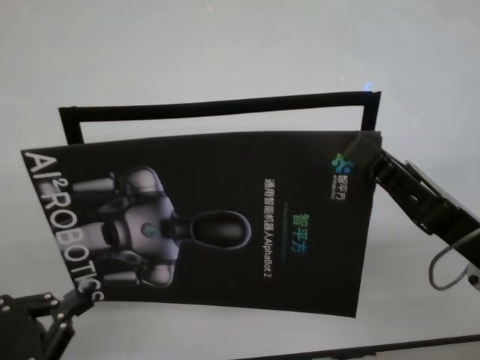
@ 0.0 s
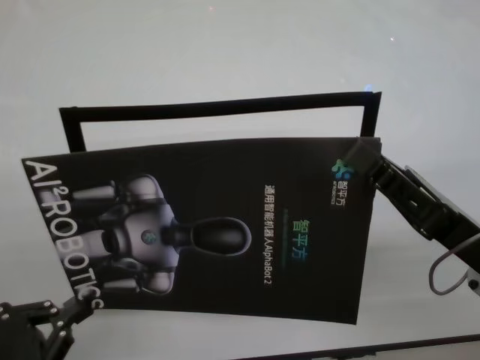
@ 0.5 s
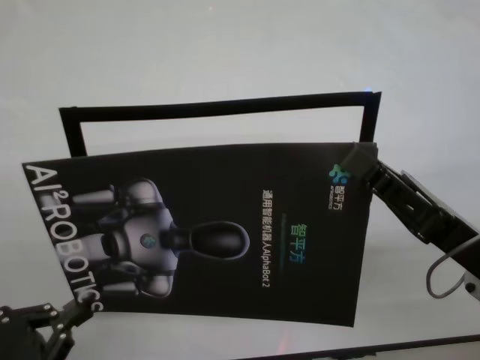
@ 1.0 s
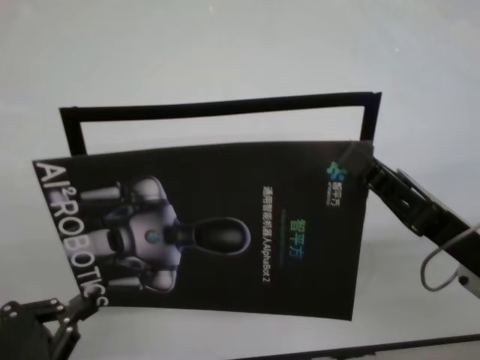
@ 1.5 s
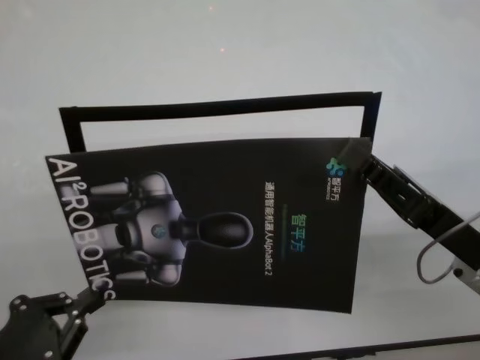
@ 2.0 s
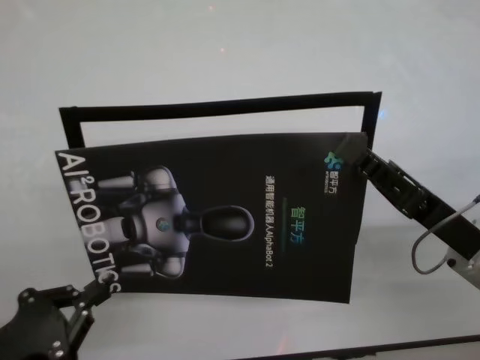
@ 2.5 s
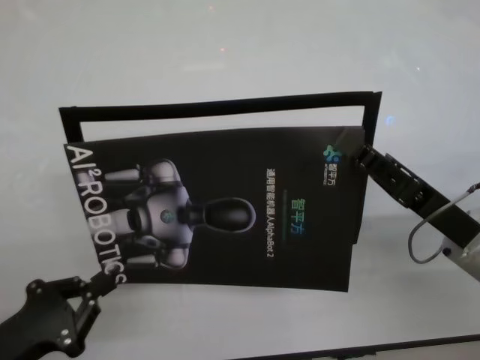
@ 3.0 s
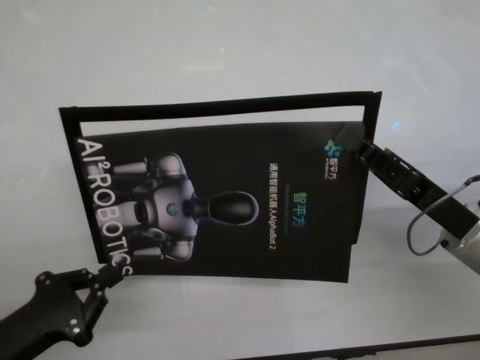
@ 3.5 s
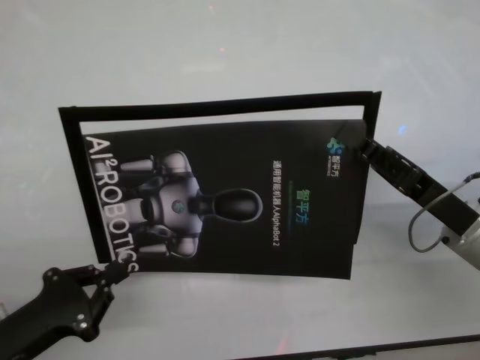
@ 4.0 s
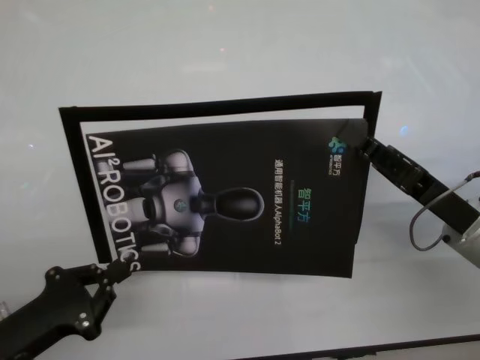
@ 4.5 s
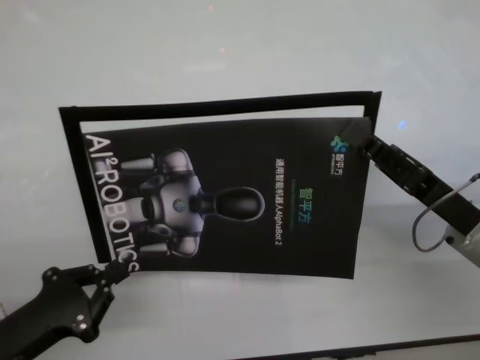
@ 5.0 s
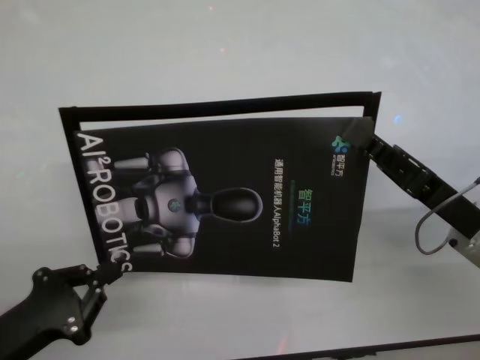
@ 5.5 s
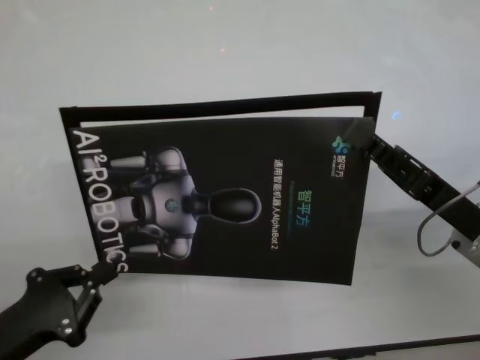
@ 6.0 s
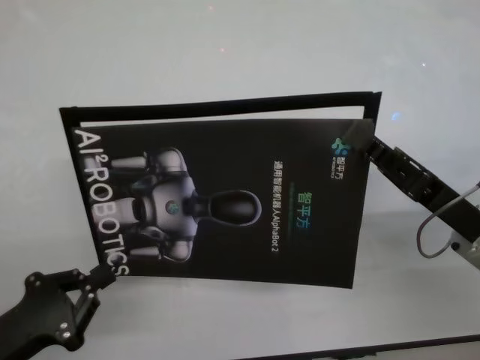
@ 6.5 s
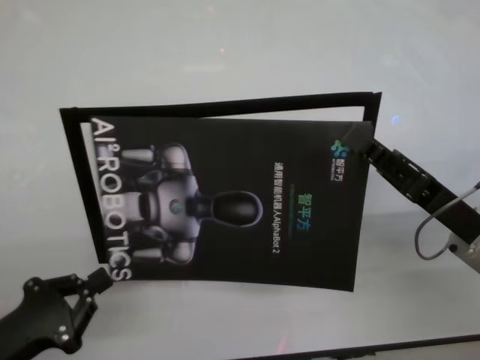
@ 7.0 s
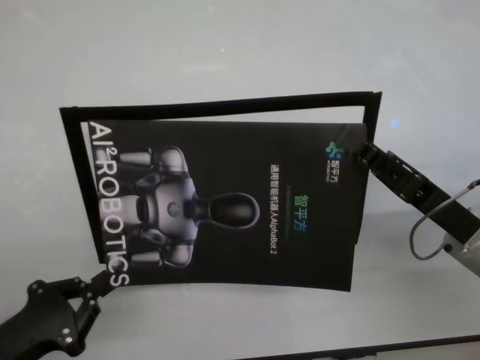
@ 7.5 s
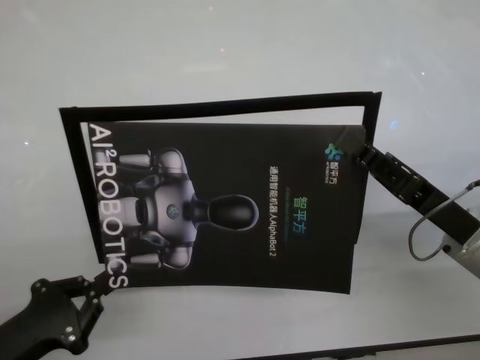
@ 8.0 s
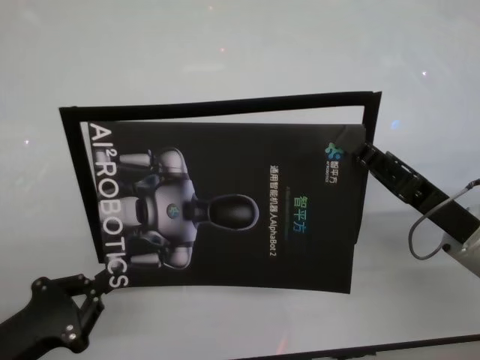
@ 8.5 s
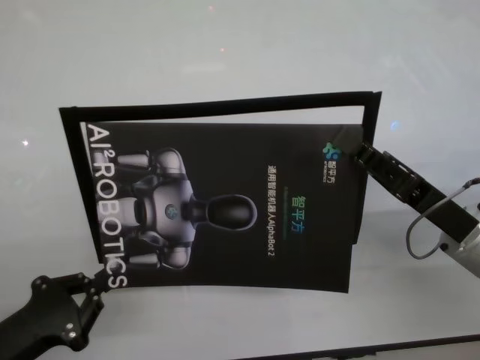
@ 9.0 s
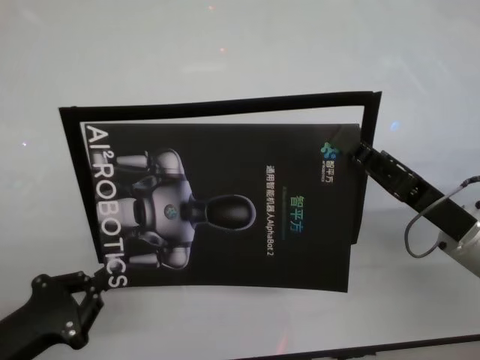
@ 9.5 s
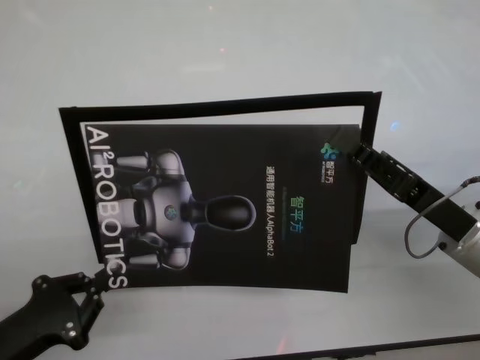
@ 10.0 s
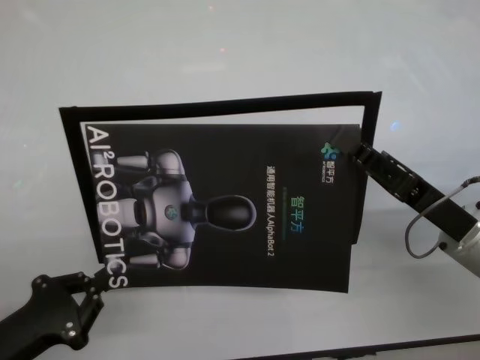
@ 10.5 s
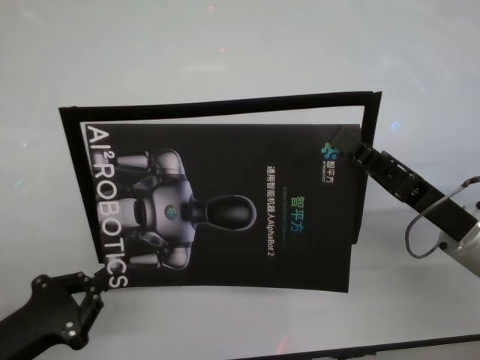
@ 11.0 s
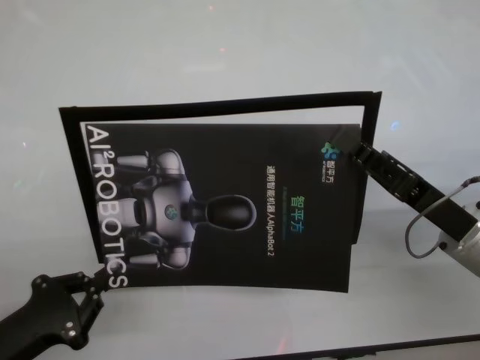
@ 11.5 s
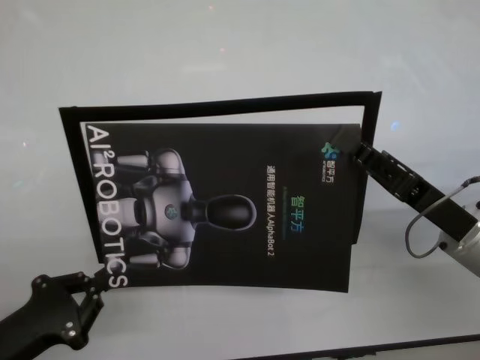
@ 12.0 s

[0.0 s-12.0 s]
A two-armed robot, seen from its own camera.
Task of the whole recording: stick the poster on the table by hand.
Step, 0.0 to 5.0 s: Stick the advertisement in the top-right corner area with both grippers.
